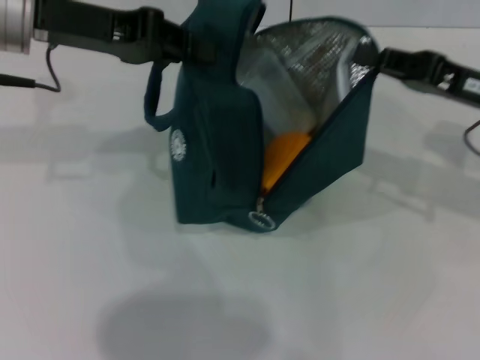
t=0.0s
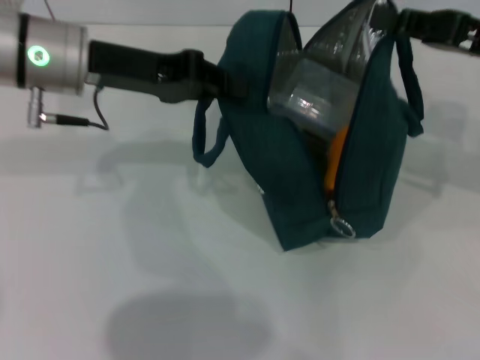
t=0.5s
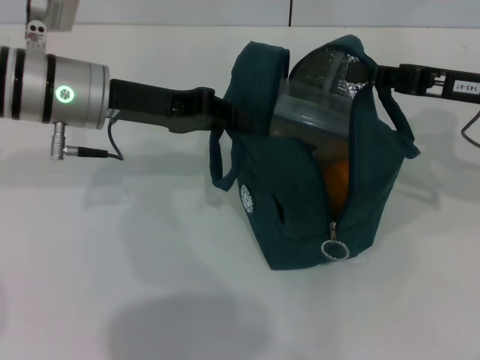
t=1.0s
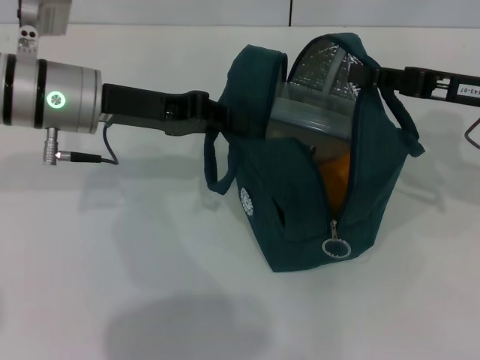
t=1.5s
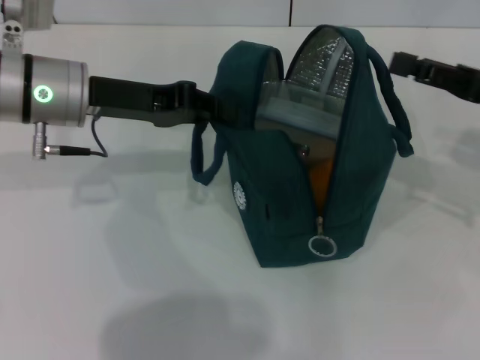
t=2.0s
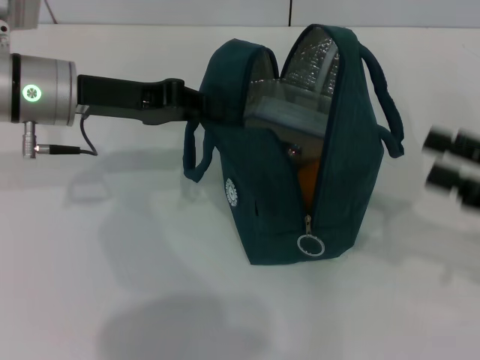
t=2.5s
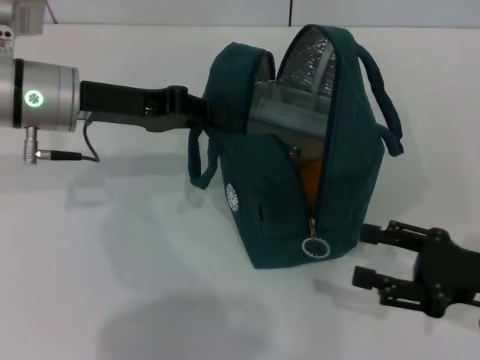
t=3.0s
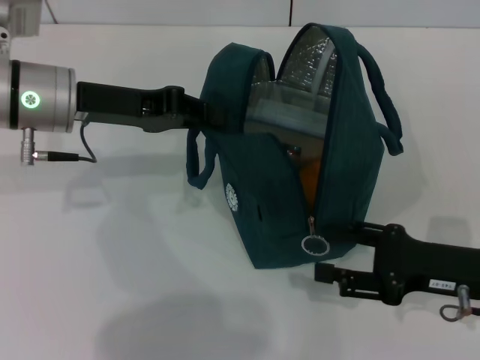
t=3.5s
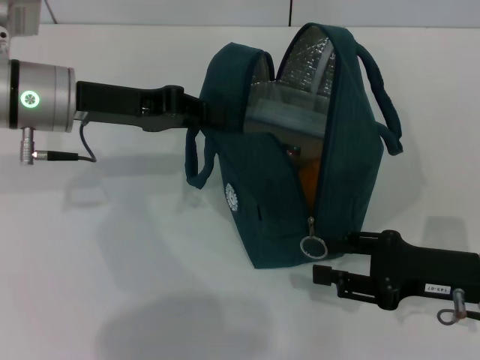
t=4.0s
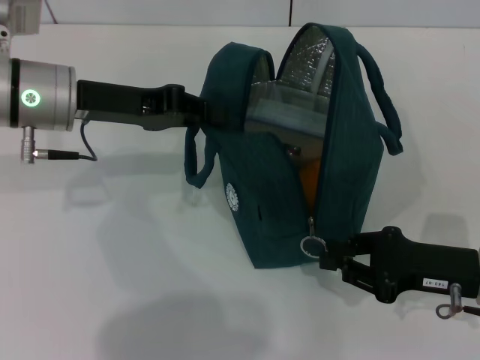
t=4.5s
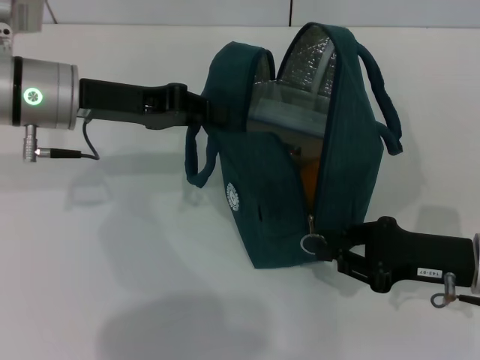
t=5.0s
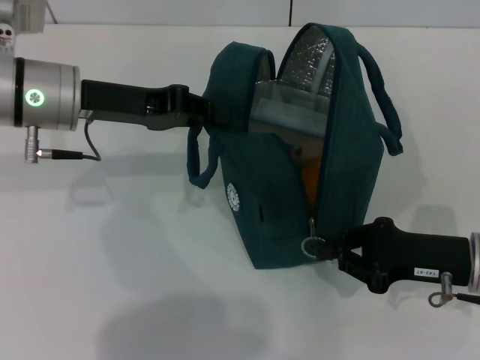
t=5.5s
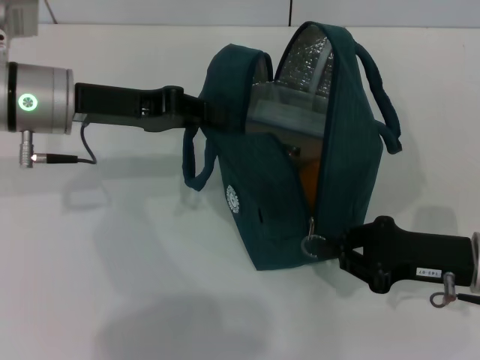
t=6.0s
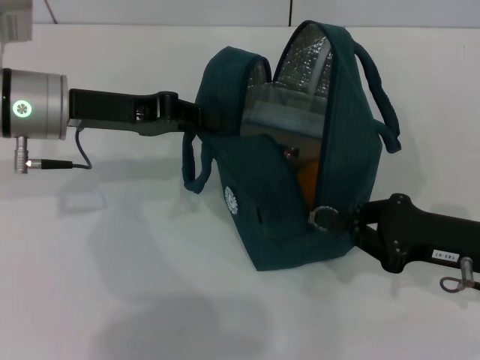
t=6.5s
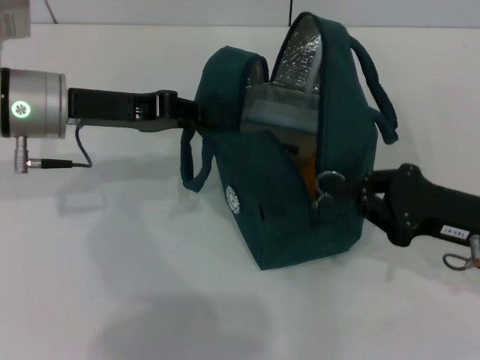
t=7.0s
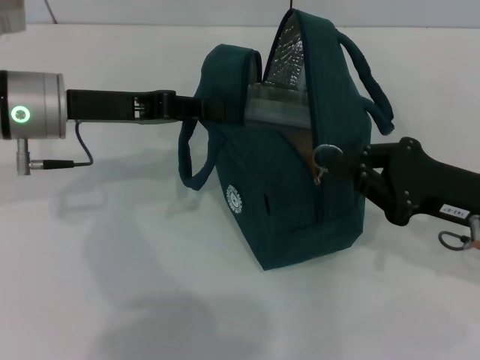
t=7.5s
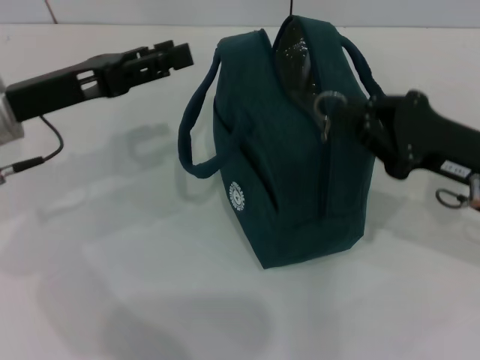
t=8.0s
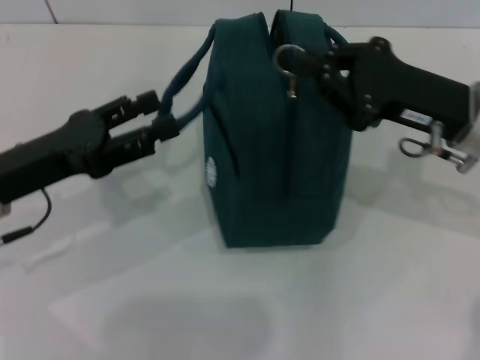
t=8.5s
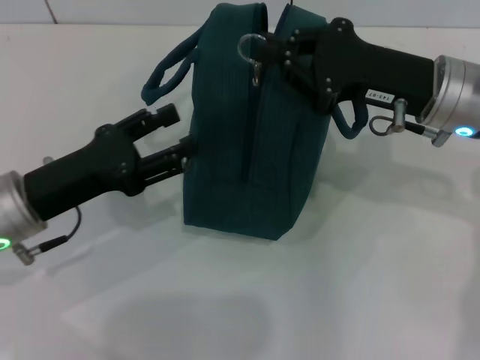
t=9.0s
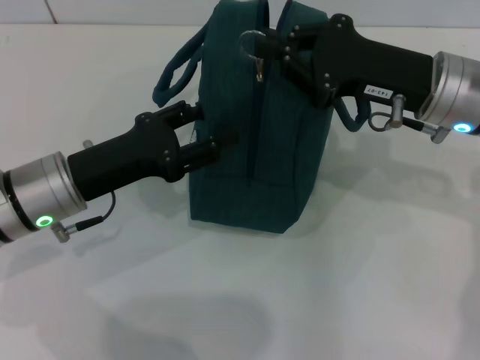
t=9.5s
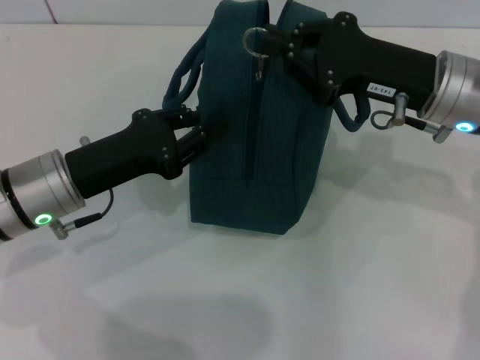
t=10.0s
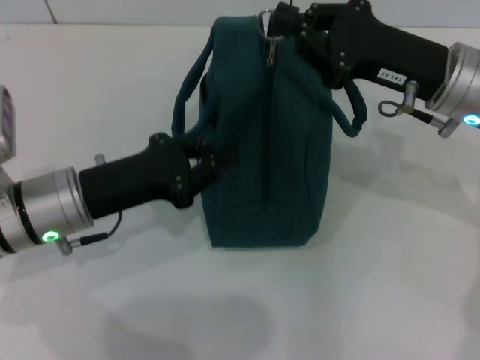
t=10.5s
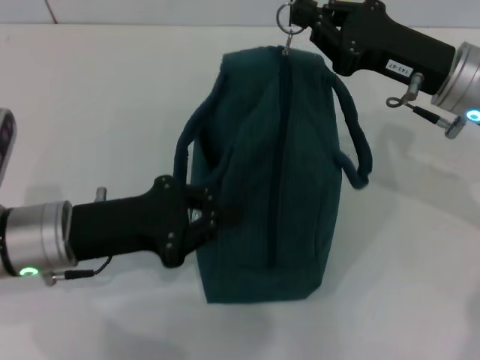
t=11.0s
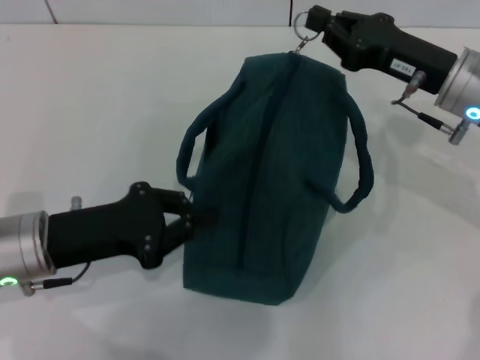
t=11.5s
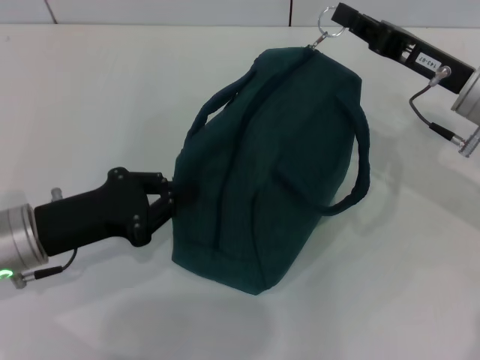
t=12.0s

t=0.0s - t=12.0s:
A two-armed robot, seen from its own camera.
Step, t=0.0s - t=2.0s: Hold the lunch bag with your right hand.
Step, t=2.5s - t=8.0s: Hold the lunch bag with your left hand.
t=0.0s - t=2.0s: The right gripper opens. Meanwhile the left gripper travels downward by some 10 cm.
t=2.0s - t=4.0s: The right gripper heads downward and backward, covering roughly 15 cm.
t=4.0s - t=6.0s: The right gripper closes up.
t=6.0s - t=8.0s: The left gripper moves approximately 5 cm, and opens, while the right gripper goes approximately 5 cm upward.
t=8.0s - t=10.0s: The right gripper is displaced to the left and forward by some 10 cm, while the left gripper heads downward, covering roughly 5 cm.
t=10.0s - t=12.0s: The left gripper ends up about 5 cm from where it was, and closes; the right gripper moves about 5 cm.

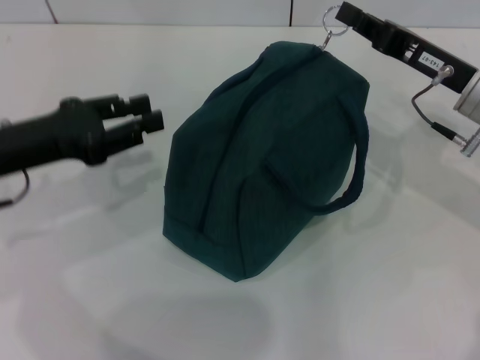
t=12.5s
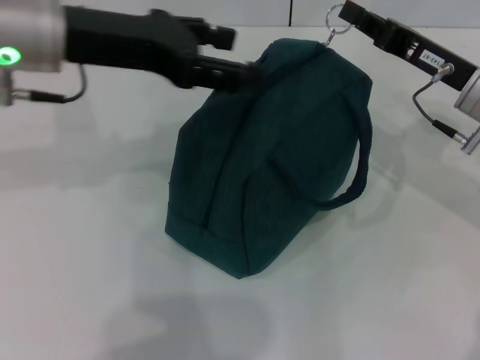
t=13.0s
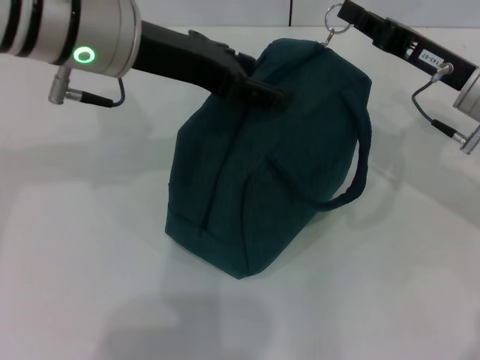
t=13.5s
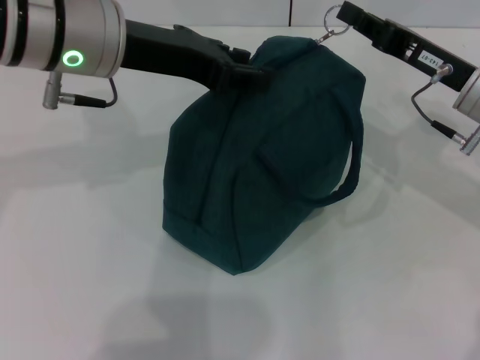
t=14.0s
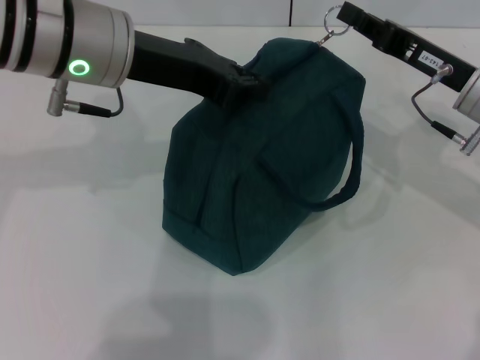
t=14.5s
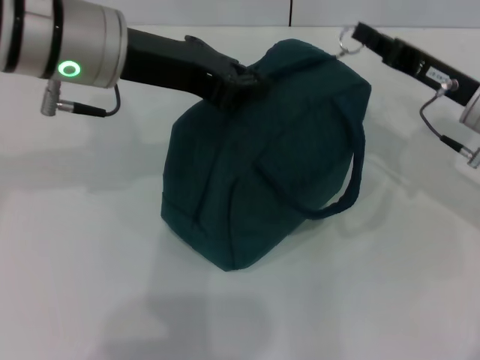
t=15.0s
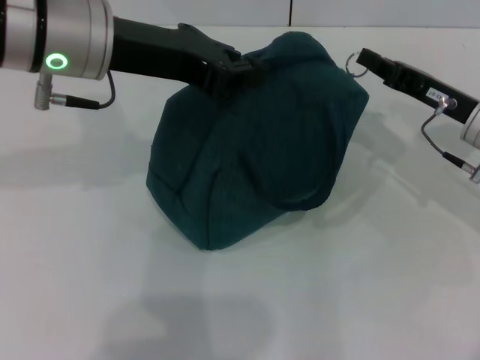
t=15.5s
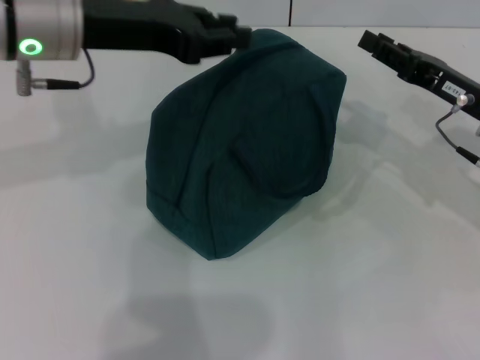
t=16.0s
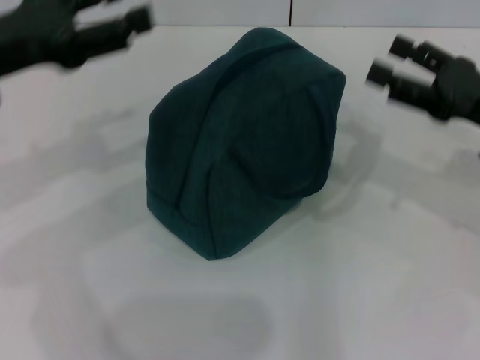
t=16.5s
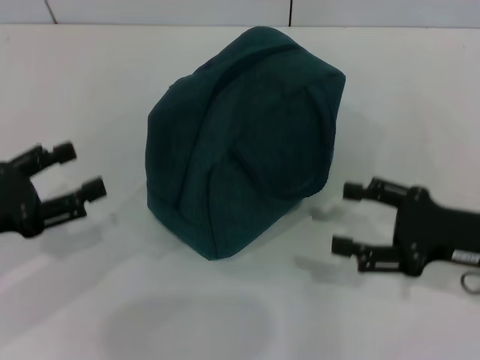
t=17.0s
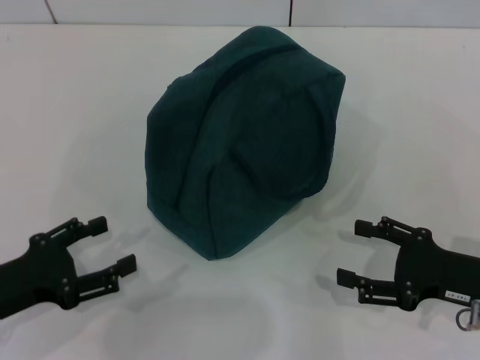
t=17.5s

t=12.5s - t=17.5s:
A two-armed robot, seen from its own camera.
Step, t=12.5s - t=15.5s: Zip up the lunch bag with your right hand.
t=12.5s - t=15.0s: The left gripper travels to the right, upward and forward by some 15 cm, and opens, then closes again.
t=15.0s - t=17.5s: The left gripper travels downward, backward and to the left by roughly 30 cm, and opens, while the right gripper goes roughly 15 cm backward and downward, and opens up.

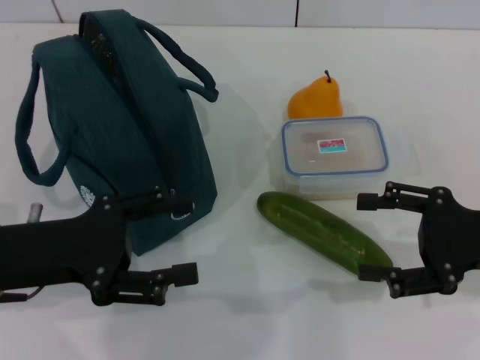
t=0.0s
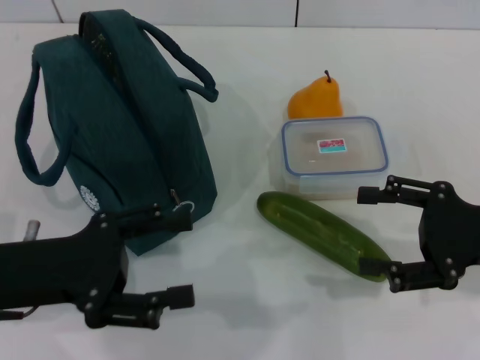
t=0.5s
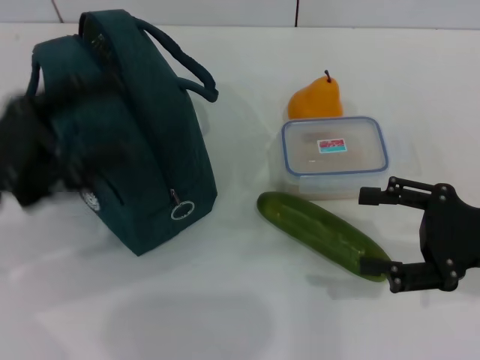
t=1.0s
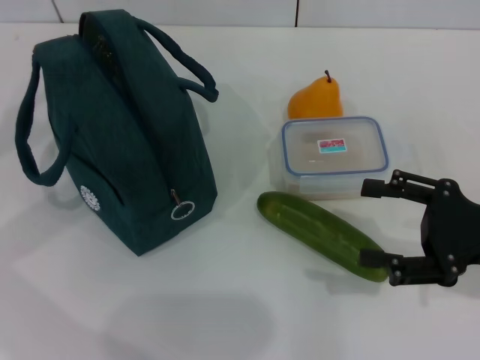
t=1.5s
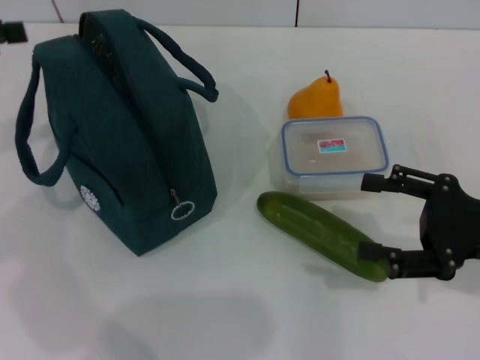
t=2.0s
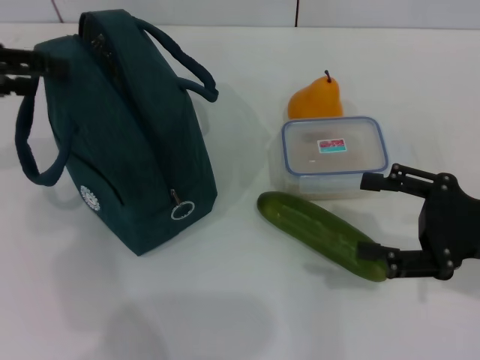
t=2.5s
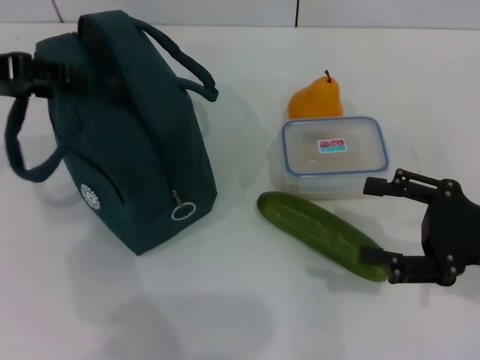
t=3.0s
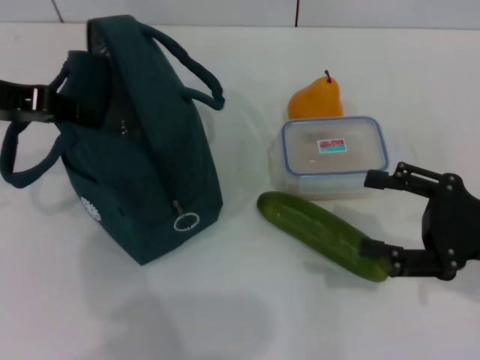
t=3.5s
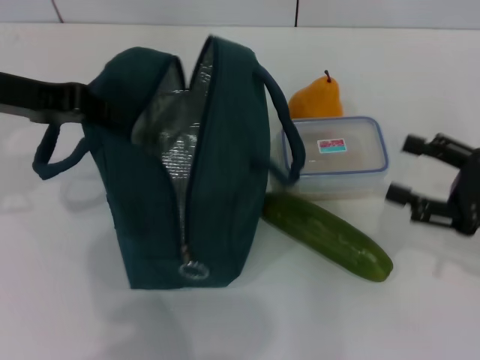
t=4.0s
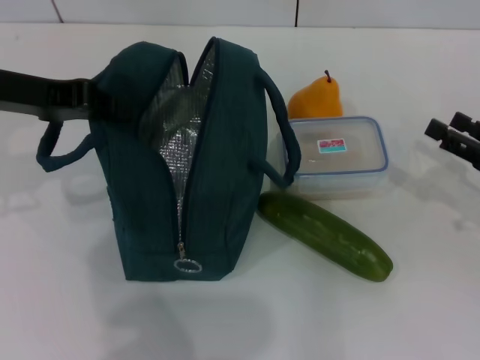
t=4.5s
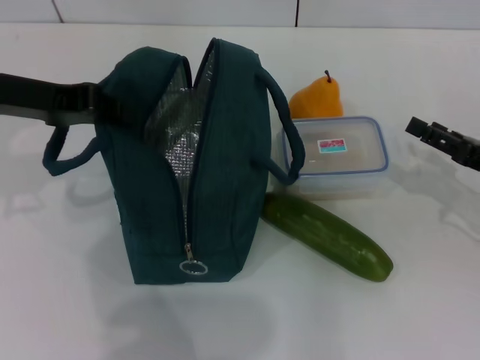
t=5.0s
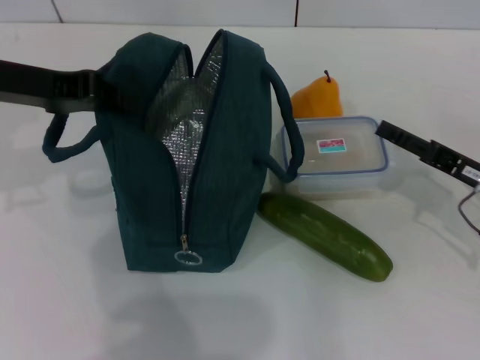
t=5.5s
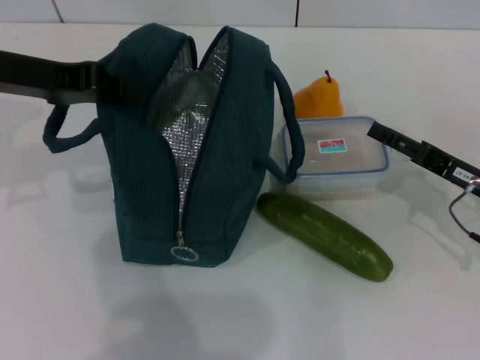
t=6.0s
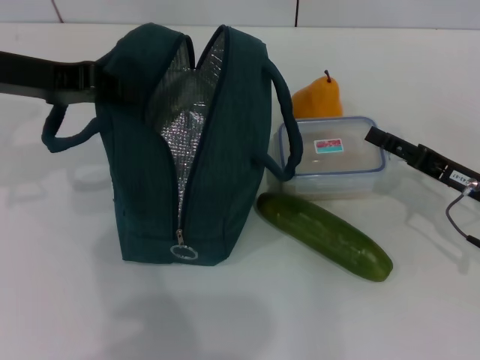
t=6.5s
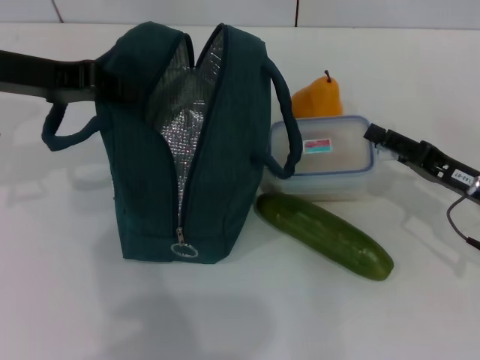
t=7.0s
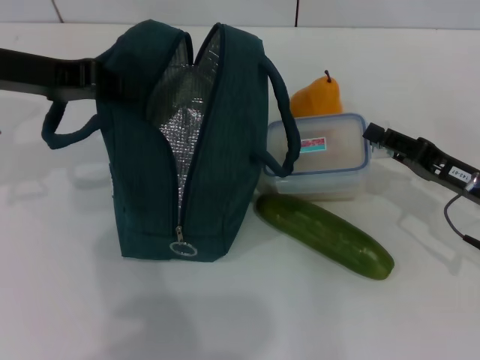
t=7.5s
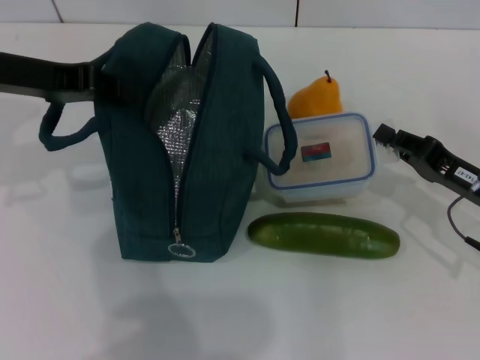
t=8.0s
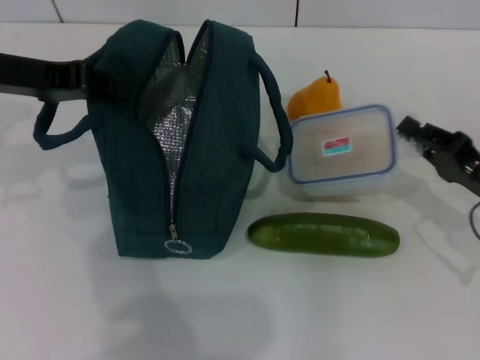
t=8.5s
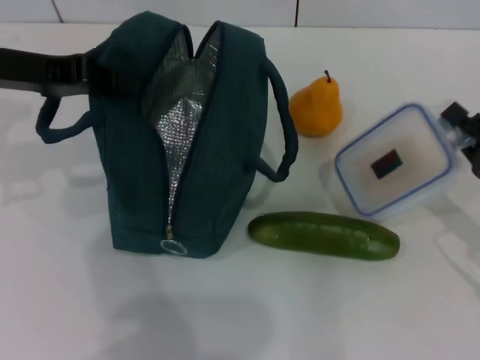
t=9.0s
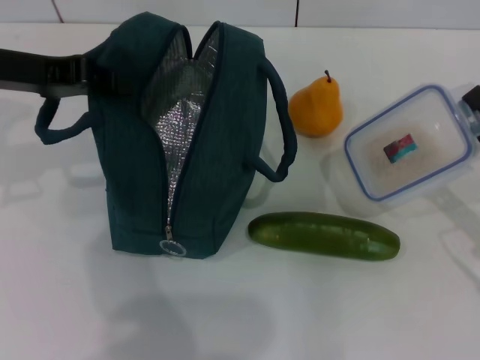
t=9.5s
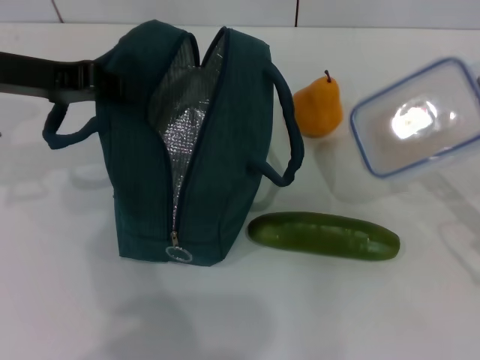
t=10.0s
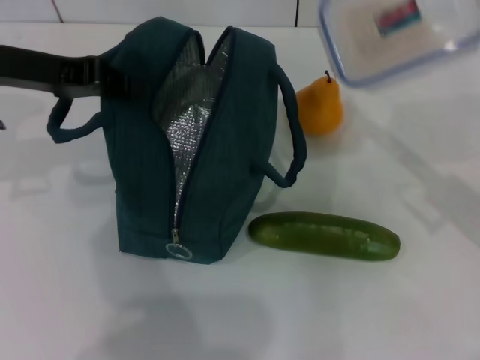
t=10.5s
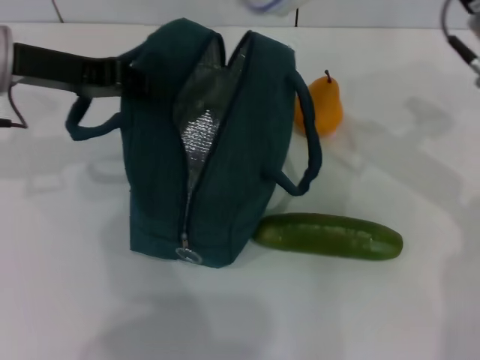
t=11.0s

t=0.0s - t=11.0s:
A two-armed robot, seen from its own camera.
Step, t=0.0s - t=4.5s: Hold the lunch bag with your left hand.
Step, t=5.0s - t=7.5s: Pick up the lunch box with your right hand.
t=0.0s - t=2.0s: The left gripper travels upward, to the left and forward by approximately 20 cm.
t=2.0s - t=3.5s: The left gripper shifts roughly 5 cm to the right, and closes up.
t=3.5s - t=5.5s: The left gripper closes its fingers. Meanwhile the right gripper moves forward and downward, roughly 5 cm.
t=5.5s - t=7.5s: The right gripper closes its fingers.
t=7.5s - t=9.0s: The right gripper moves approximately 5 cm, and closes.
t=9.0s - t=11.0s: The right gripper goes roughly 20 cm upward, forward and to the left.
